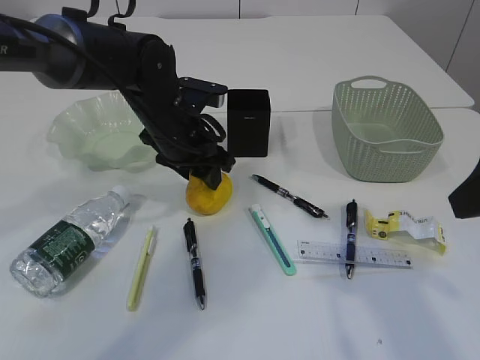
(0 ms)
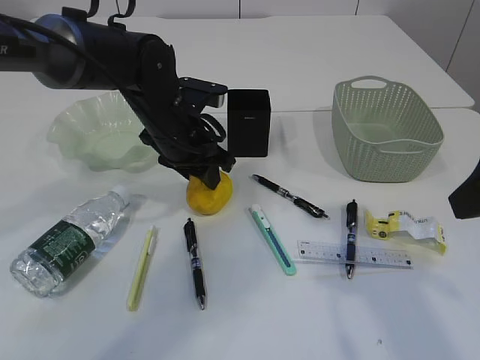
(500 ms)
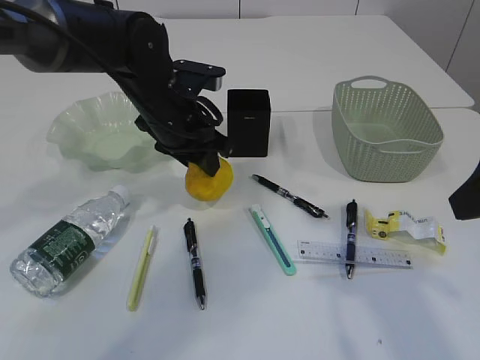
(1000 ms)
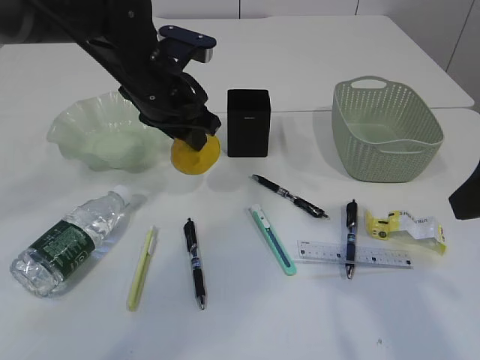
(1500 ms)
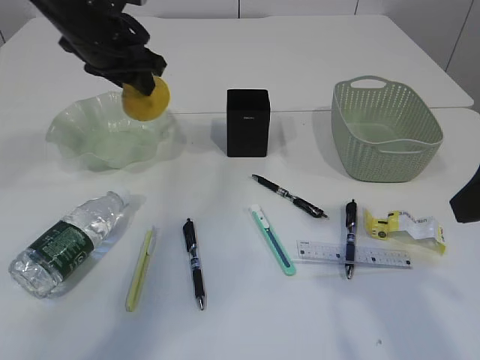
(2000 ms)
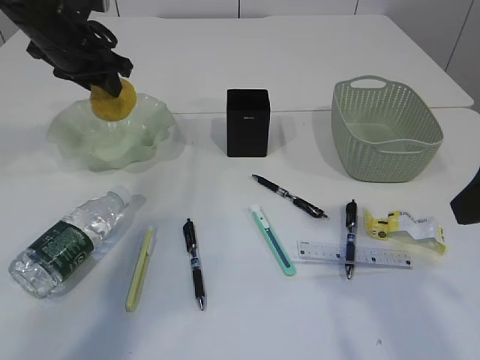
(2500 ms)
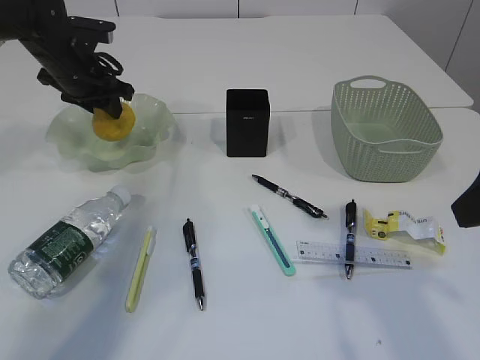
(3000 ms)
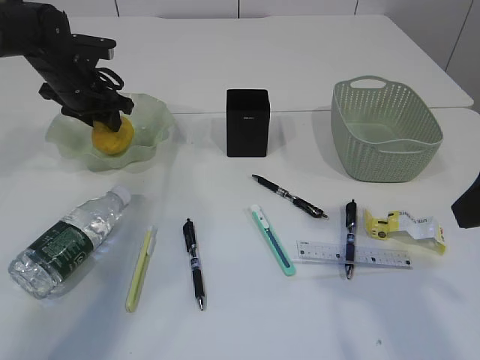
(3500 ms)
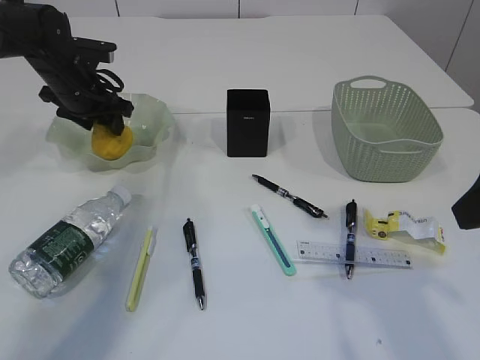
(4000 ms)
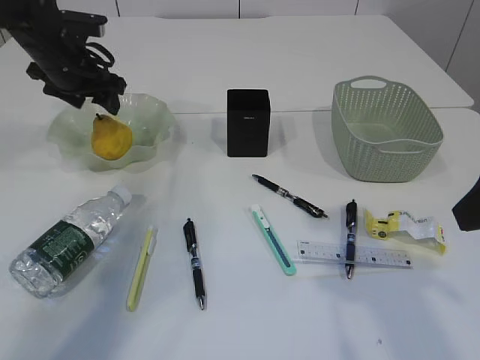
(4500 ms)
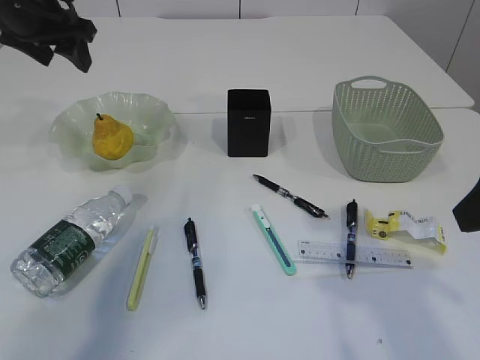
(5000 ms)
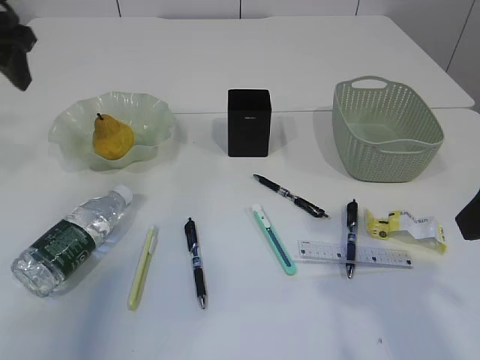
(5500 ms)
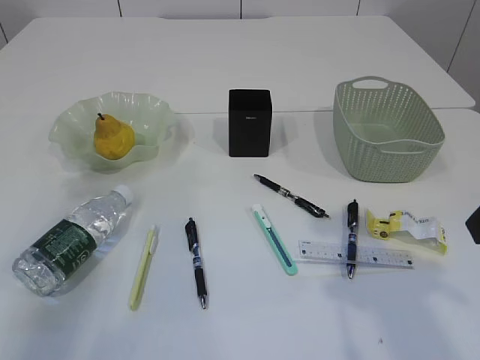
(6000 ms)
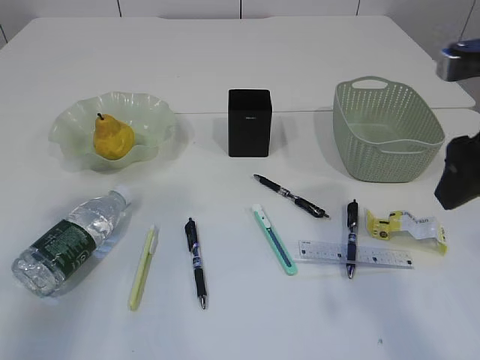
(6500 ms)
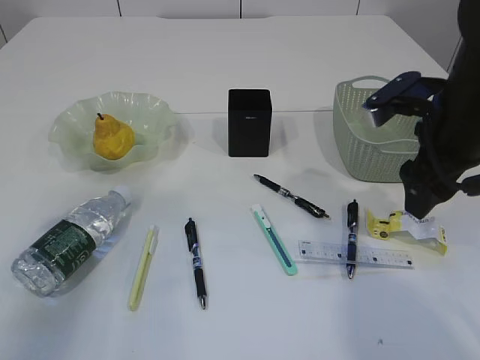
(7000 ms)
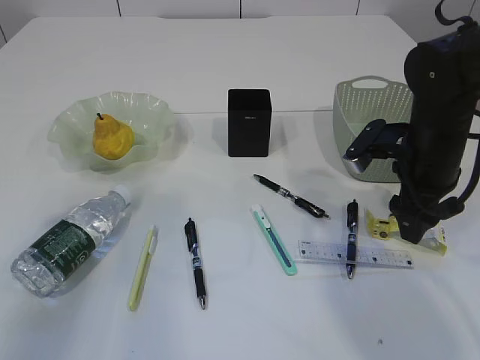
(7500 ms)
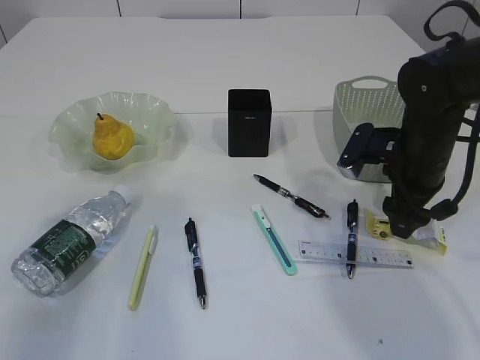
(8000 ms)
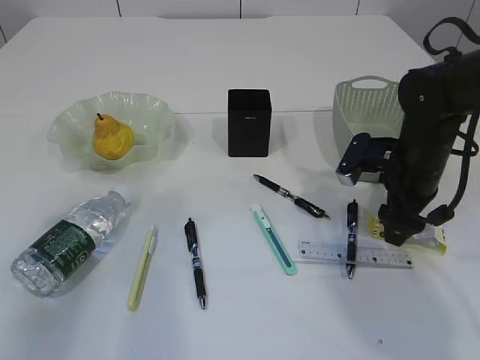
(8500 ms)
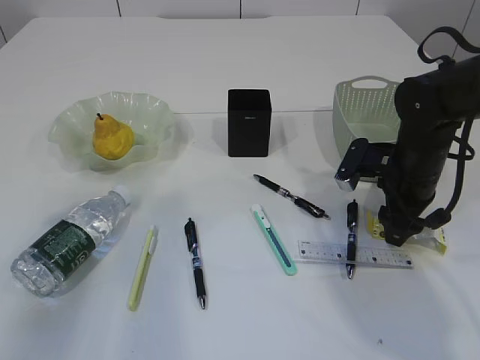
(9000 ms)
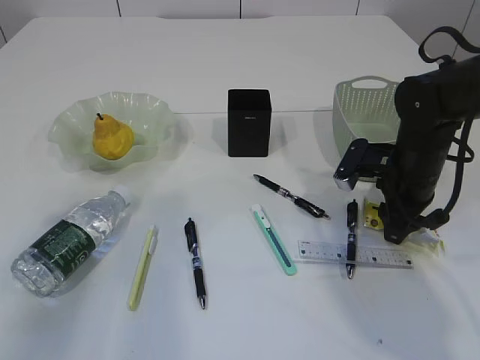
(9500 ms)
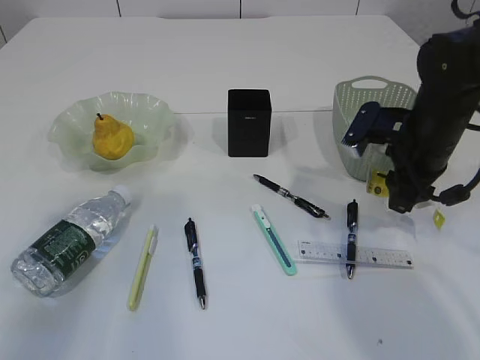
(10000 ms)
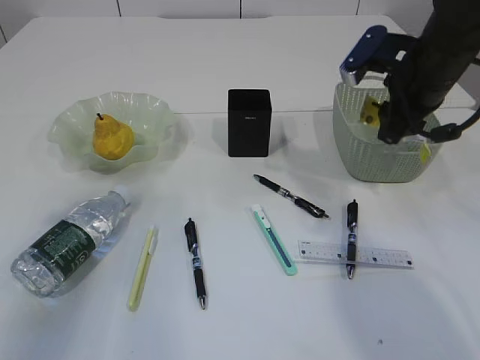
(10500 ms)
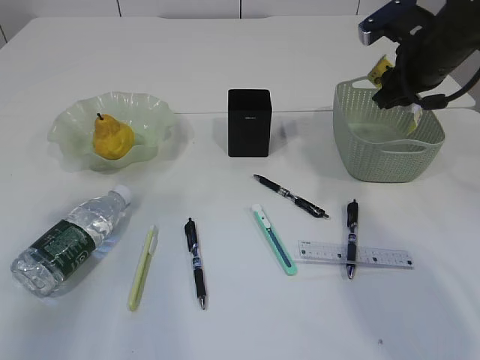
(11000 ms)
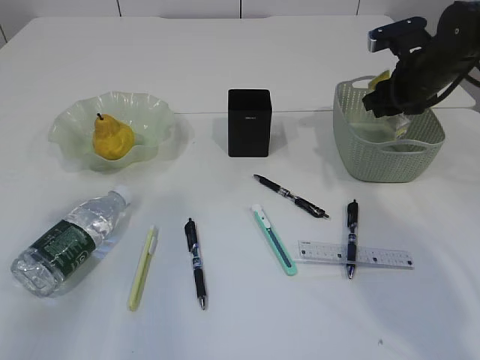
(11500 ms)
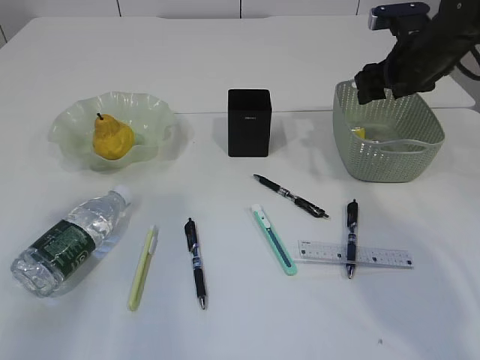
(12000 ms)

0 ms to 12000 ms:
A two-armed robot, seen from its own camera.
Step, 2500 ms to 5000 ms: Place the pear in the plate.
Step, 5500 ms to 10000 ms: Pick up the waste paper.
0 ms to 2000 ms: The left gripper goes roughly 15 cm upward and to the left.
2000 ms to 4000 ms: The left gripper heads downward, to the left and forward, covering some 15 cm.
4000 ms to 6000 ms: The left gripper goes some 25 cm backward, upward and to the left.
6000 ms to 8000 ms: The left gripper shifts by roughly 5 cm. Meanwhile the right gripper shifts some 20 cm forward and downward.
8000 ms to 10000 ms: The right gripper closes.
10000 ms to 12000 ms: The right gripper is displaced forward by some 10 cm, and opens up.

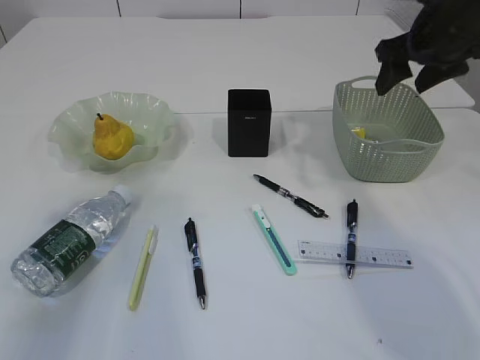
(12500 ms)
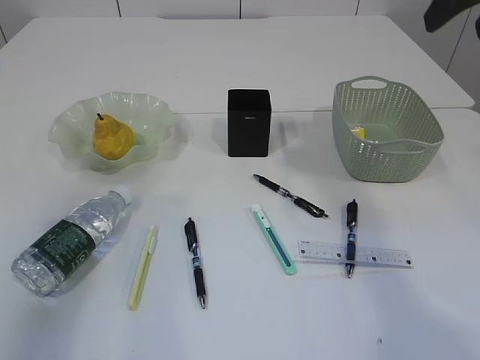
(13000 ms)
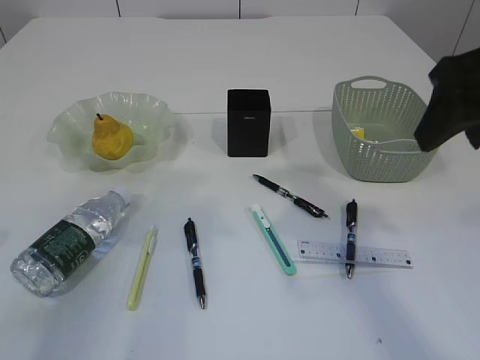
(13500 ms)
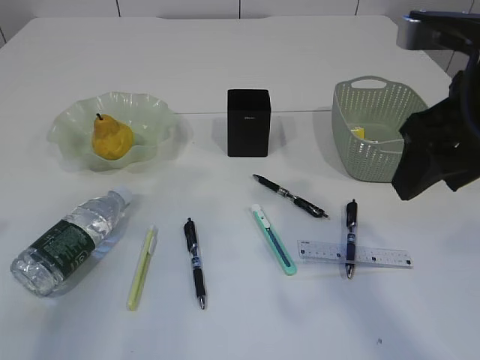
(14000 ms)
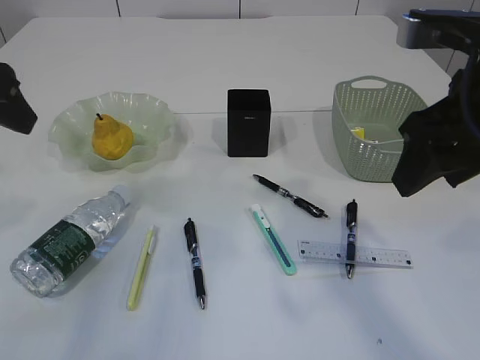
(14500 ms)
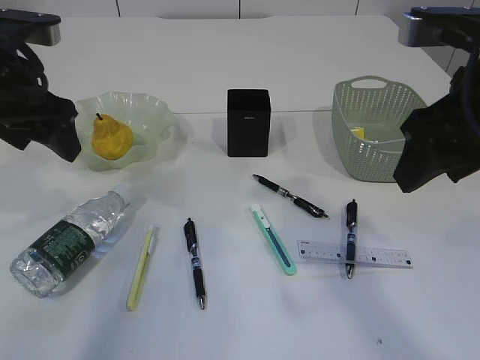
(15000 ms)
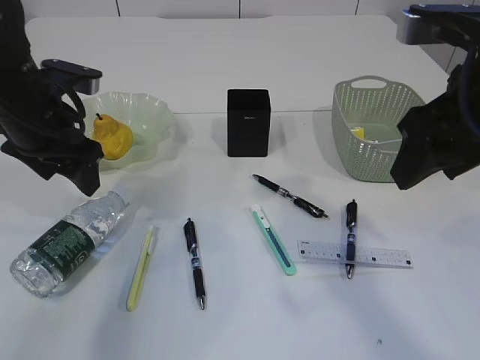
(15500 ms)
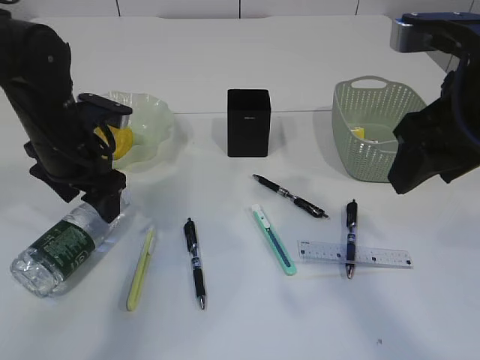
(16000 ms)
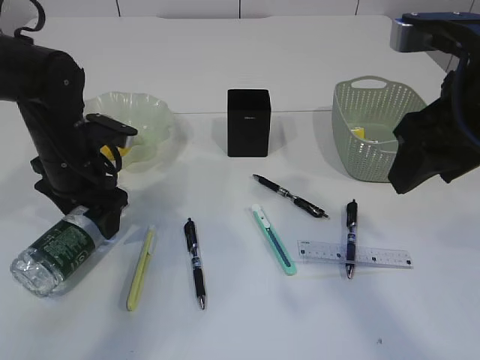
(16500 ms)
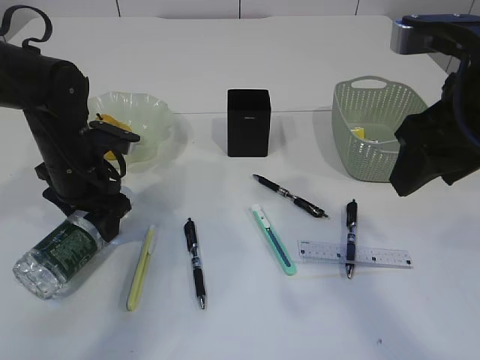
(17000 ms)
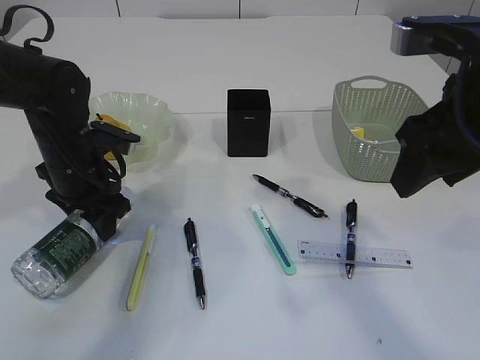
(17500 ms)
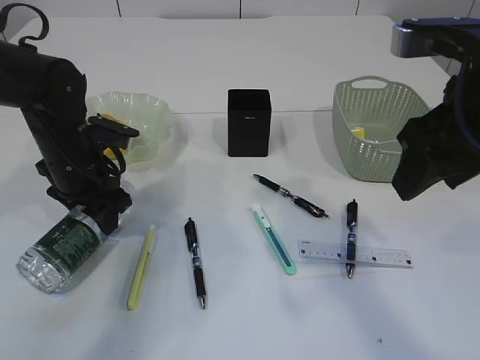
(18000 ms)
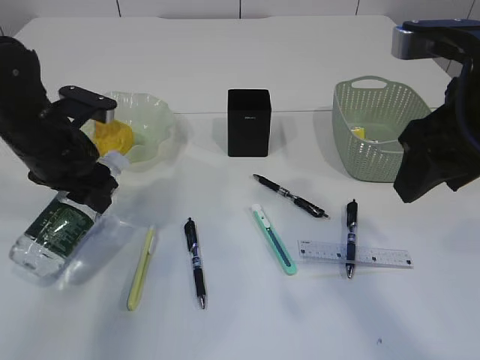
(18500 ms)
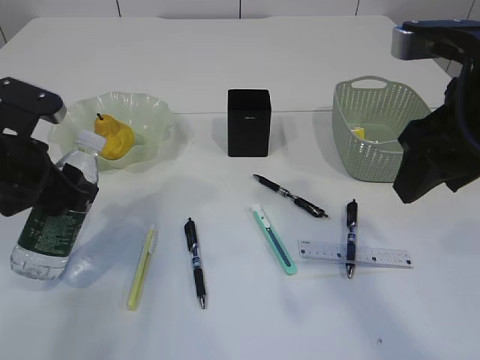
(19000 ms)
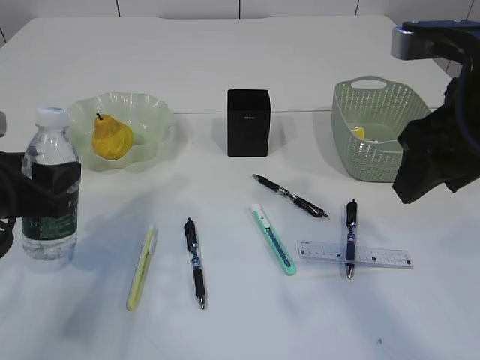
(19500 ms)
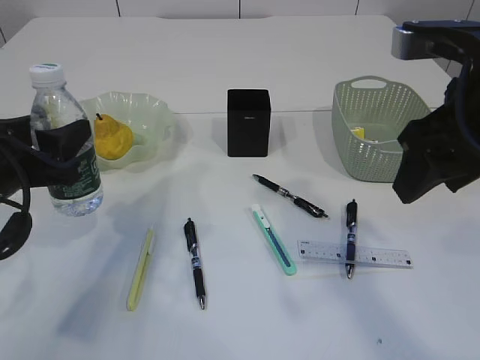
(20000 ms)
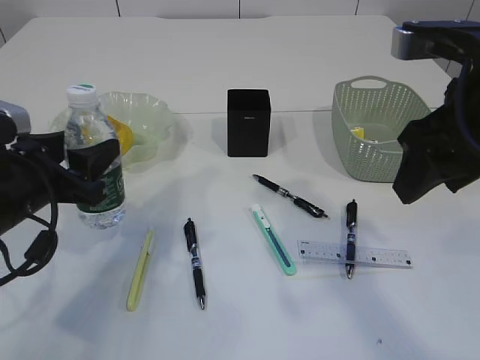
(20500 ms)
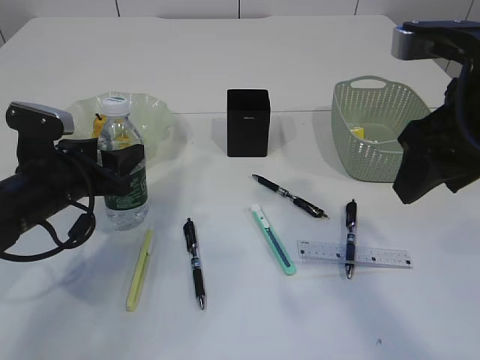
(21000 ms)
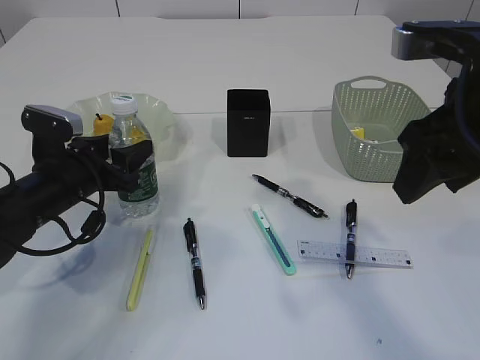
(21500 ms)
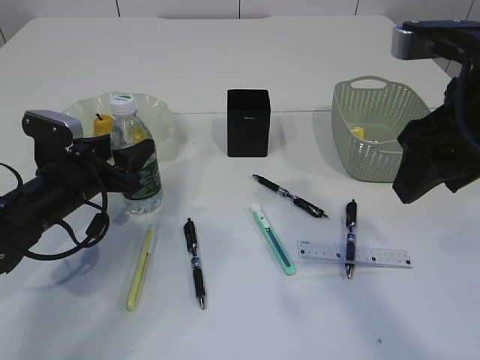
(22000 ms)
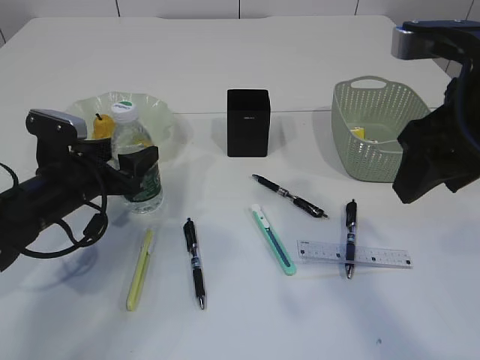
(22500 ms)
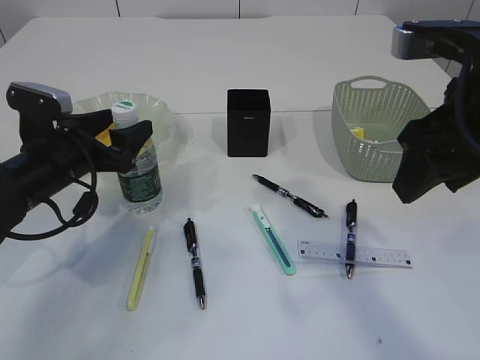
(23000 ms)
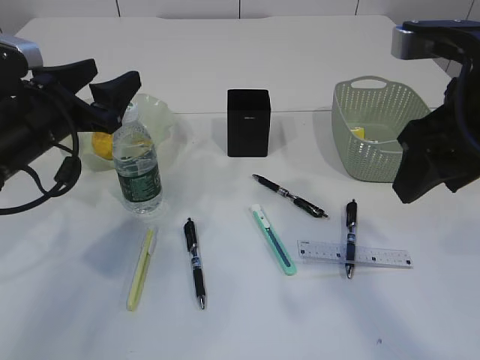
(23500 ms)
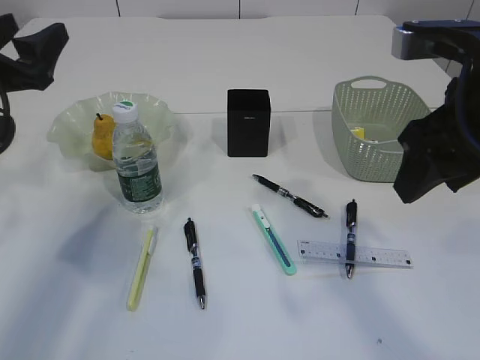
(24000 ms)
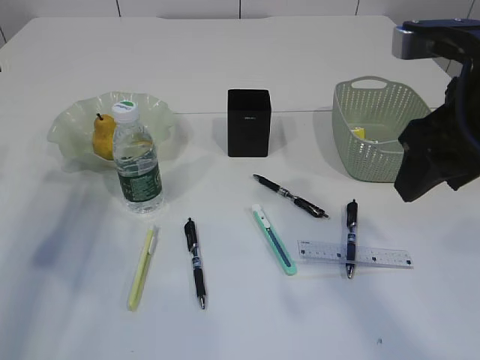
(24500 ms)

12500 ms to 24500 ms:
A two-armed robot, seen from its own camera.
Step, 13000 ms to 20000 ms: Pick up the bottle with the left arm.
Step, 20500 ms to 24000 ms: Place the bottle.
12500 ms to 14500 ms: The right gripper heads backward, covering some 20 cm. Meanwhile the left gripper goes roughly 5 cm to the right.
14500 ms to 16500 ms: The left gripper heads downward and forward, covering roughly 20 cm.
16500 ms to 18500 ms: The left gripper closes its fingers.
18500 ms to 20500 ms: The left gripper travels backward by roughly 10 cm.
20500 ms to 22500 ms: The left gripper shifts roughly 10 cm forward and downward.
22500 ms to 24500 ms: The left gripper shifts roughly 20 cm to the left and upward.

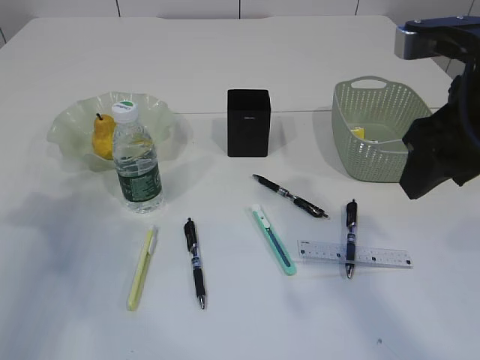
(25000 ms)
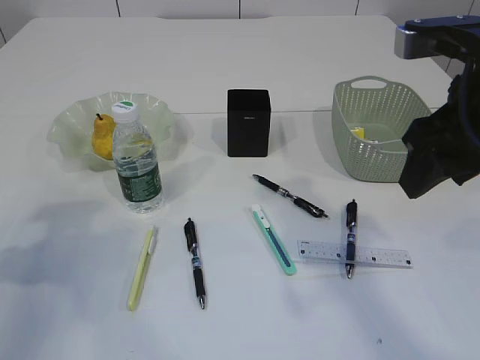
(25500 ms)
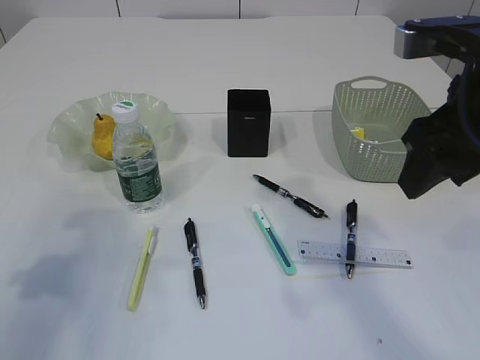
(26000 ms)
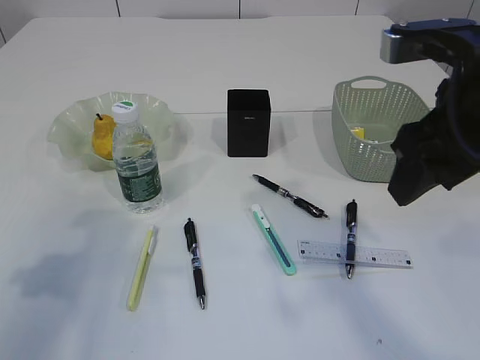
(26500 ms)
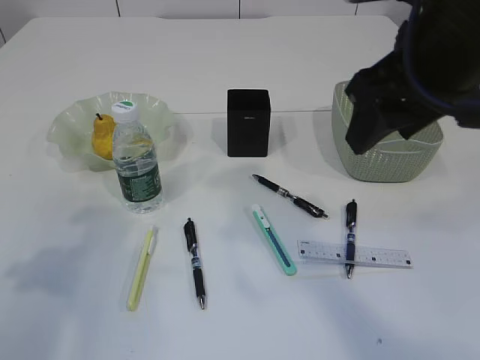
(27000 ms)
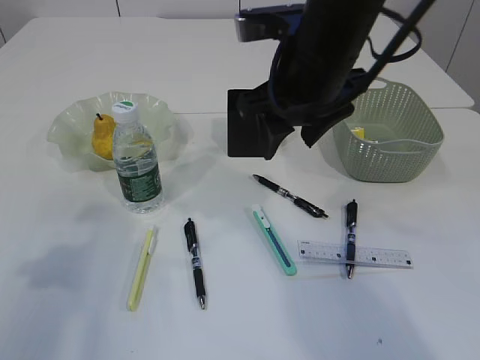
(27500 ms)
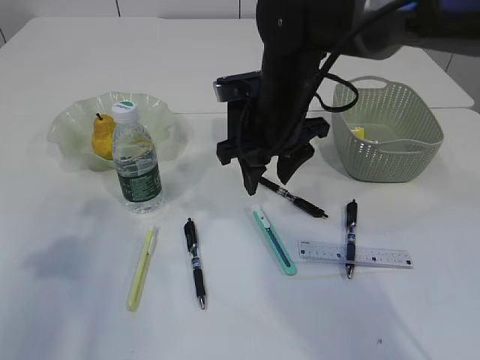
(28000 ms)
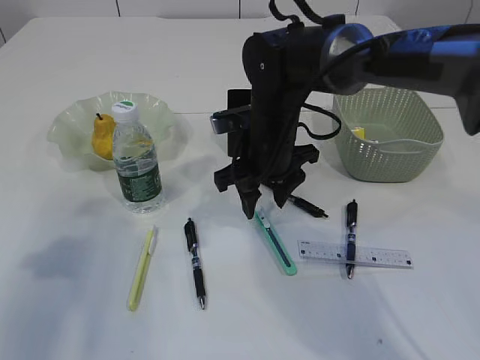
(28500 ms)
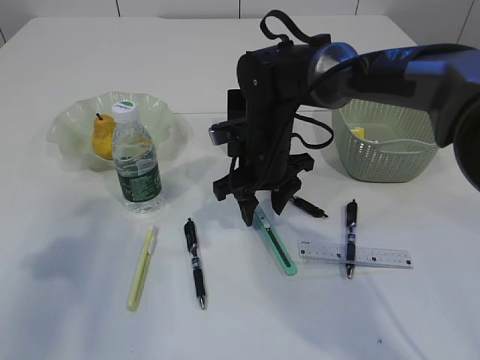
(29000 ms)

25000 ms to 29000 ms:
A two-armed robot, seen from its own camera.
25000 ms to 27000 ms: The right gripper changes place by approximately 5 cm, while the left gripper goes roughly 10 cm backward.
27000 ms to 29000 ms: The right gripper goes roughly 25 cm downward, forward and to the left.
